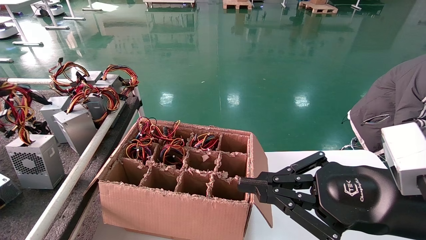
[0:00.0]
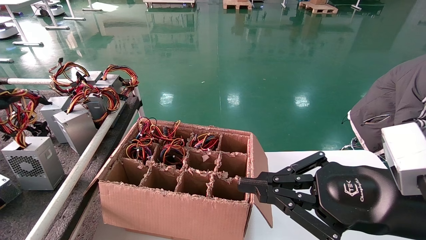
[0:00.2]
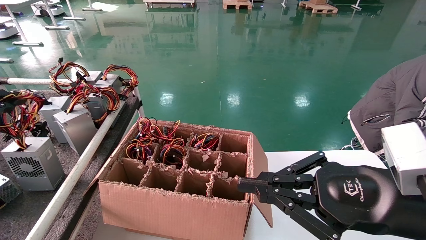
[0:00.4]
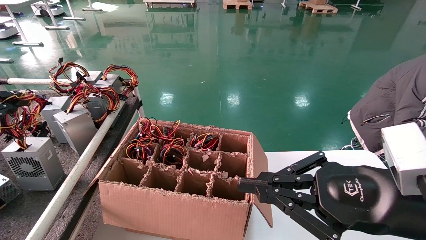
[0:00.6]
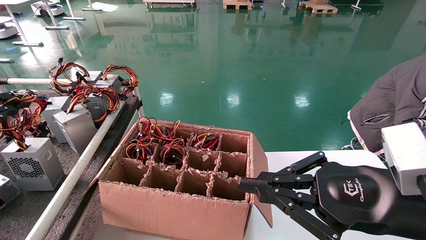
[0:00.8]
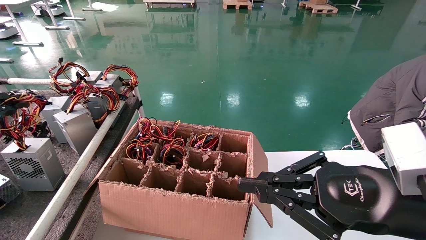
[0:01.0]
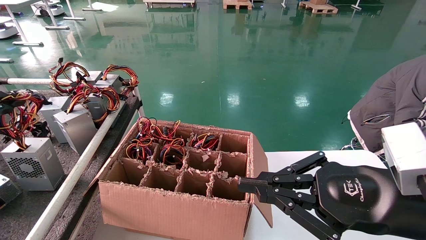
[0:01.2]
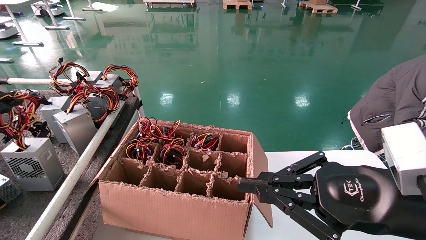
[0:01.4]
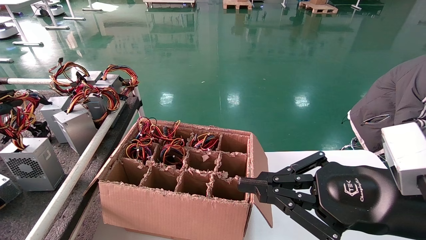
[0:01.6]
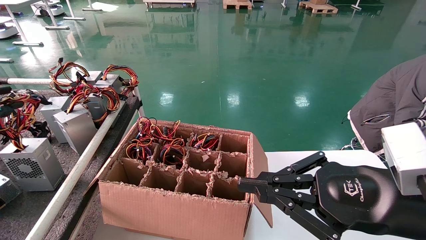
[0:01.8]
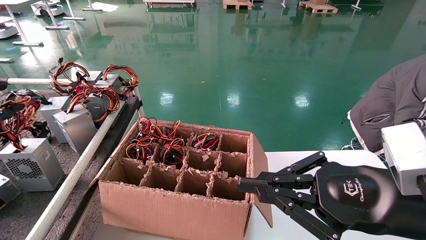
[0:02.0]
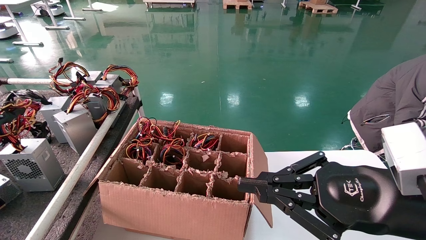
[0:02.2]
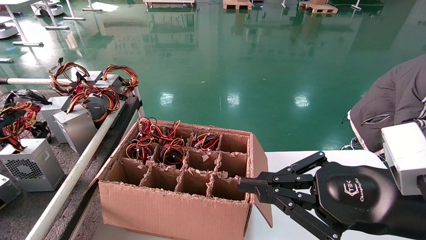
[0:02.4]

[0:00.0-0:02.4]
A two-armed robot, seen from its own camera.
Step, 0:00.0 to 0:02.2: Place the power supply on the operating table.
0:00.0 to 0:01.2: The grippers stay close to where they were, moving slightly.
0:01.2 to 0:02.4: The left gripper opens.
